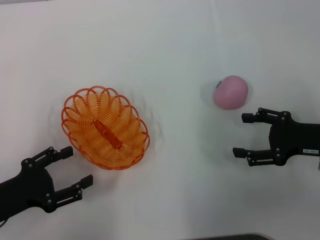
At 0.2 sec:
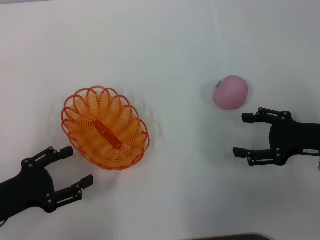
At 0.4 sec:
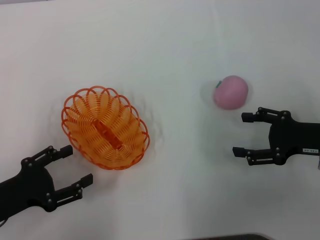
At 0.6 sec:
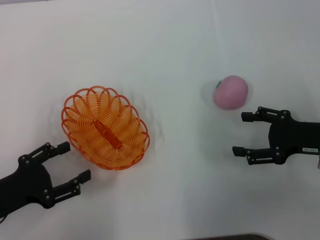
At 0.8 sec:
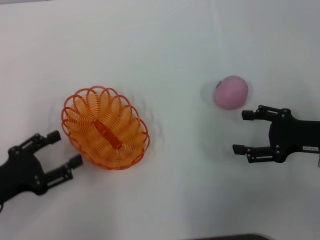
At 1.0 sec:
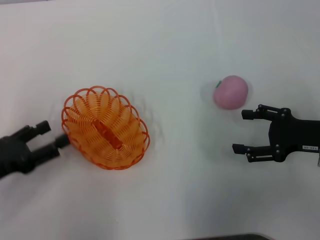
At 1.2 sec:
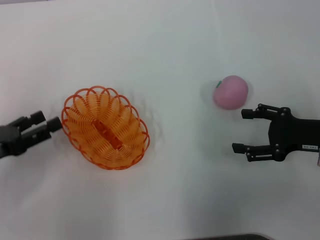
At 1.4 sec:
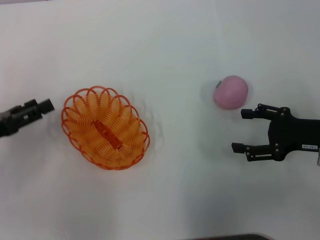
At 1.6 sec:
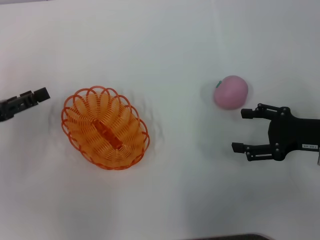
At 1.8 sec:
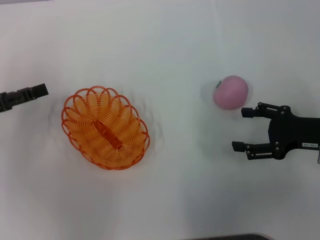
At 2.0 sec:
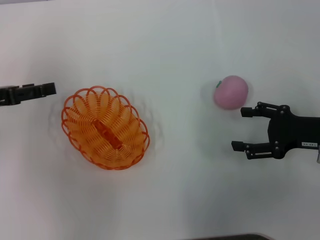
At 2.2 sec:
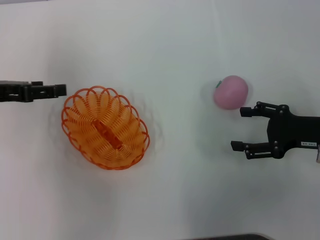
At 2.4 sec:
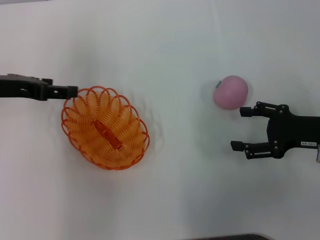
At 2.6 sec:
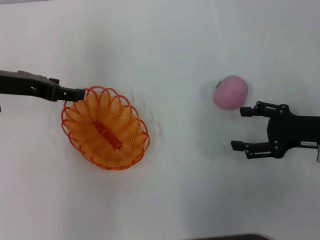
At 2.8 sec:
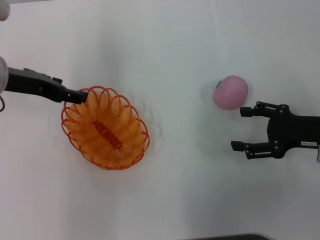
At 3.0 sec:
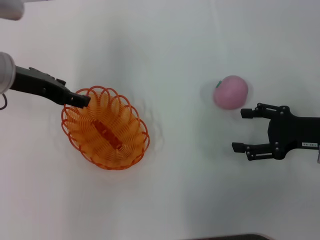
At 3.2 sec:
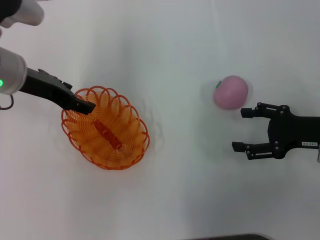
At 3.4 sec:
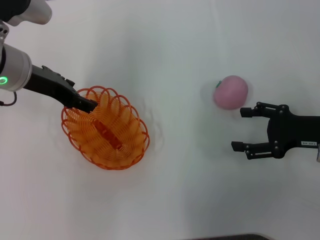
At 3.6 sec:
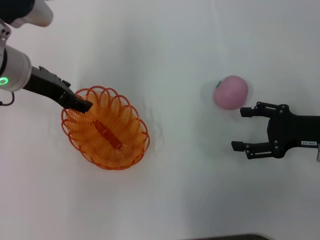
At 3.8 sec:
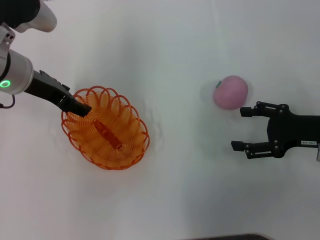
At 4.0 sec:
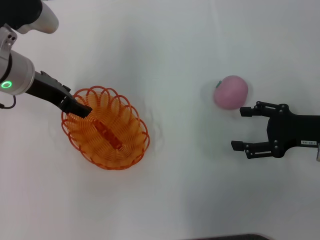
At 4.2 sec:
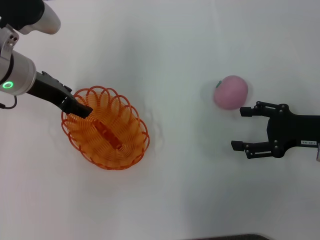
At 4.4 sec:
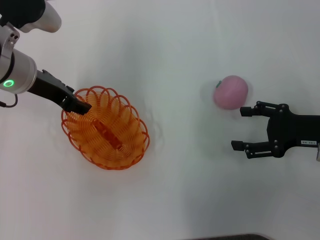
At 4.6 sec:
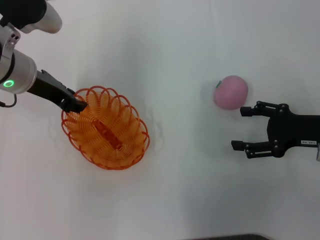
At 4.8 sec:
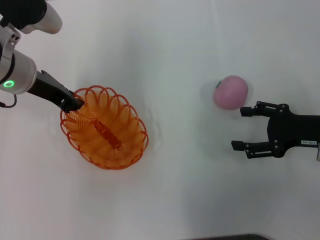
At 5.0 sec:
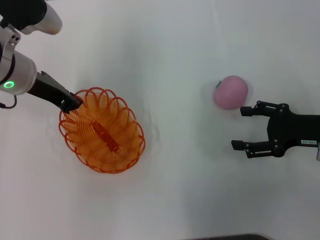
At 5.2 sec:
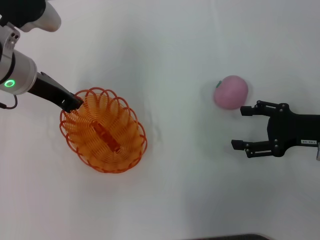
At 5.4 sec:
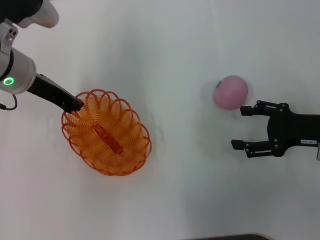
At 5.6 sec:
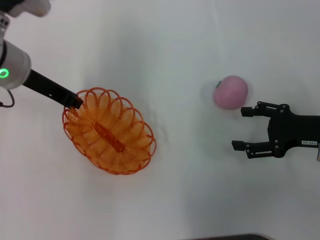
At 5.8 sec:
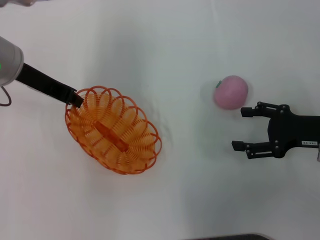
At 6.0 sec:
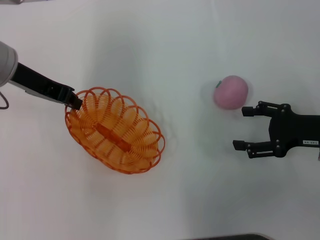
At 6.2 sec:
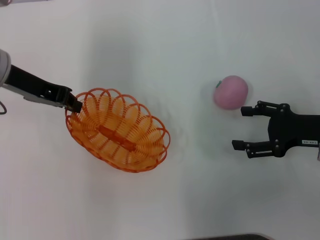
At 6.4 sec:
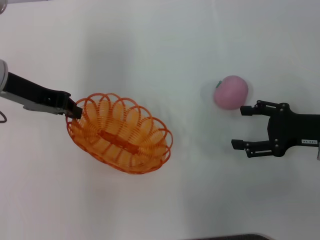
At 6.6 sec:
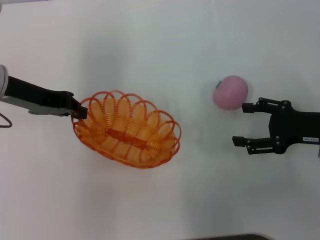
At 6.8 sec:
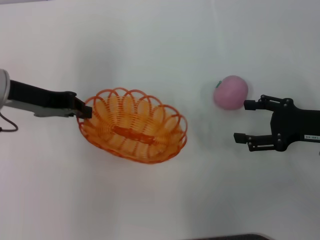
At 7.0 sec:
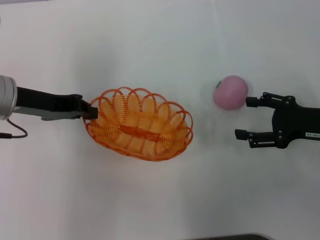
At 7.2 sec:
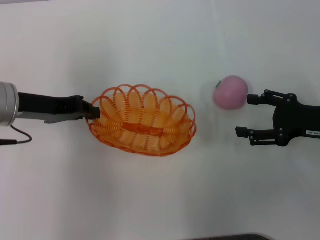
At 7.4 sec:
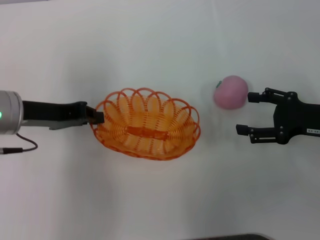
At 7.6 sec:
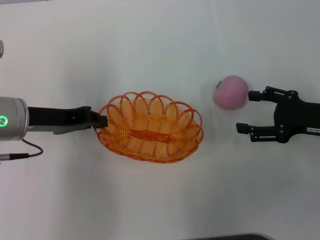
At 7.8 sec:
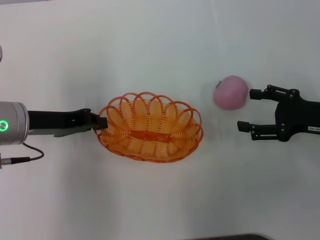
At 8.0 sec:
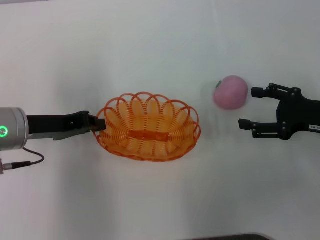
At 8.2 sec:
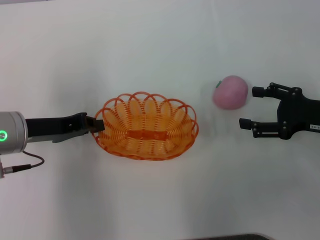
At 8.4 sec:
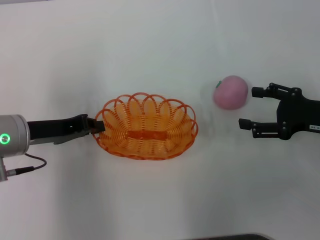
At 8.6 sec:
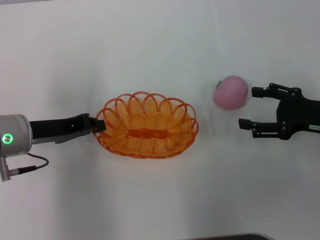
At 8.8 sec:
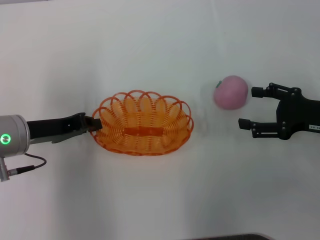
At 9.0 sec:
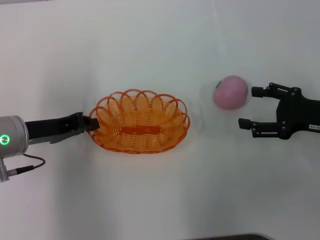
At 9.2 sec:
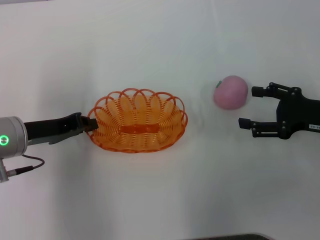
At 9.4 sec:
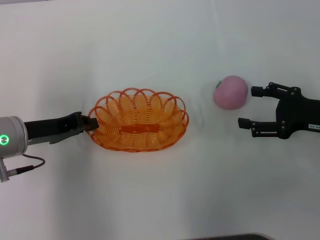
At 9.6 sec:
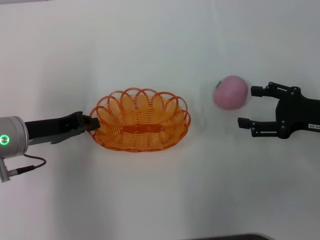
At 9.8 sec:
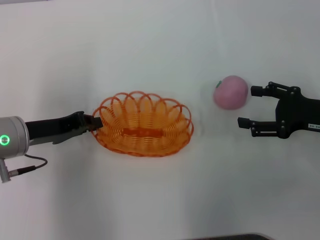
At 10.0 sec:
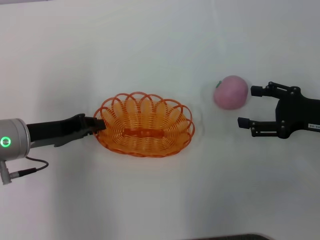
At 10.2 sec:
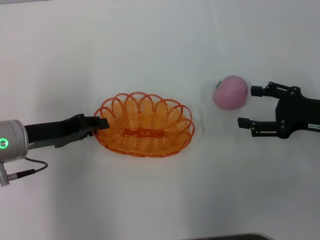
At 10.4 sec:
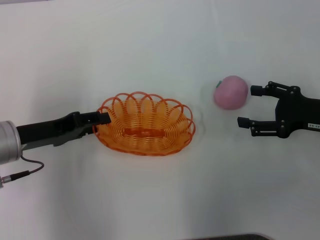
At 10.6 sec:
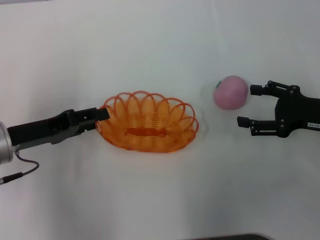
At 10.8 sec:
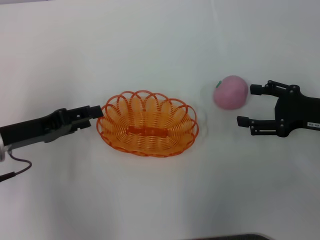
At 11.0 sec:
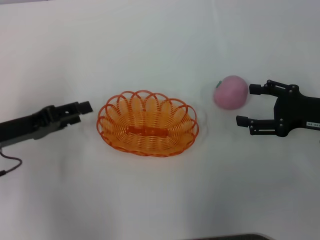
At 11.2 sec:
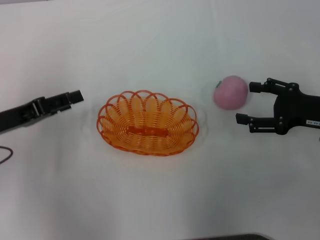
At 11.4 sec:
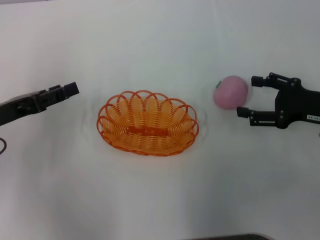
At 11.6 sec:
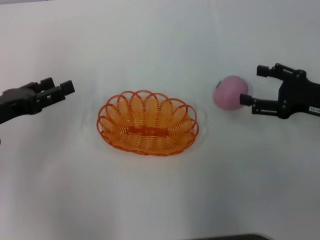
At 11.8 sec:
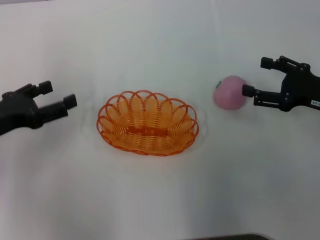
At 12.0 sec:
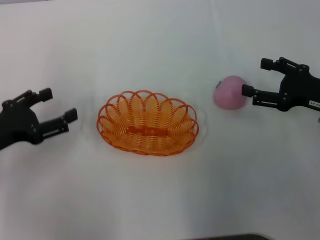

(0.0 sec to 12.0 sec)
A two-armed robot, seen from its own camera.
Step, 0.0 sec - 6.4 sec: Pick up the basket with the left gripper.
0.0 sec - 1.6 sec: The left gripper moves forward and upward, roughly 10 cm.
1.6 sec - 3.0 sec: The left gripper heads to the right, forward and upward, covering some 15 cm.
3.0 sec - 4.4 sec: The grippers make only small movements.
4.4 sec - 6.0 sec: The left gripper closes its fingers.
6.0 sec - 7.6 sec: The left gripper heads backward and downward, covering approximately 10 cm.
7.6 sec - 10.4 sec: The grippers move only a little.
10.4 sec - 12.0 sec: The left gripper is displaced to the left by approximately 5 cm, and opens its fingers.

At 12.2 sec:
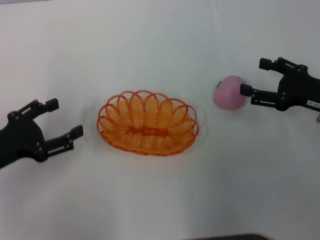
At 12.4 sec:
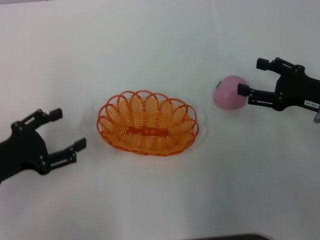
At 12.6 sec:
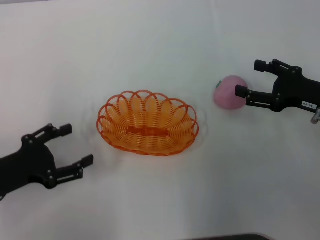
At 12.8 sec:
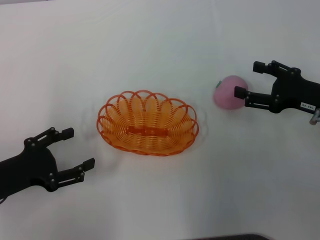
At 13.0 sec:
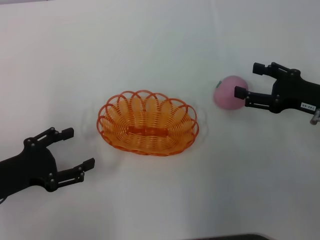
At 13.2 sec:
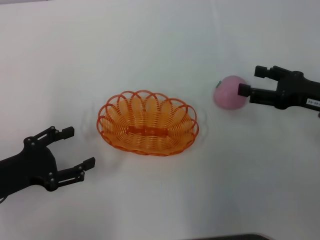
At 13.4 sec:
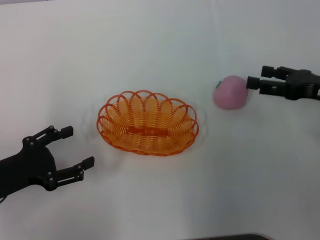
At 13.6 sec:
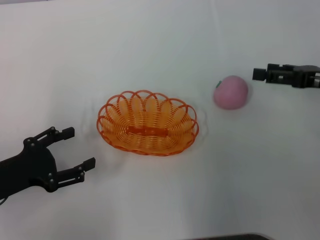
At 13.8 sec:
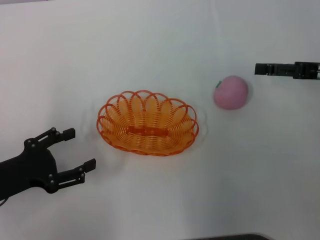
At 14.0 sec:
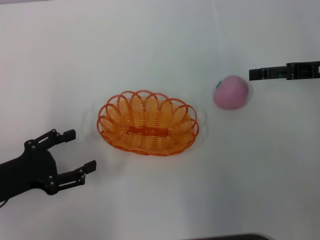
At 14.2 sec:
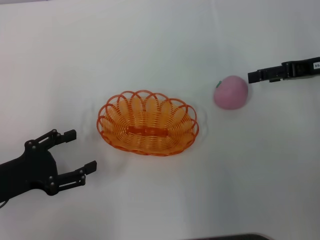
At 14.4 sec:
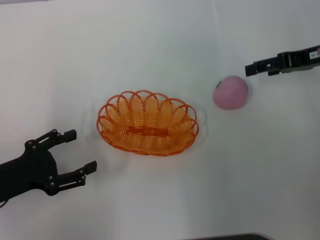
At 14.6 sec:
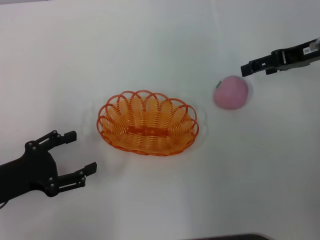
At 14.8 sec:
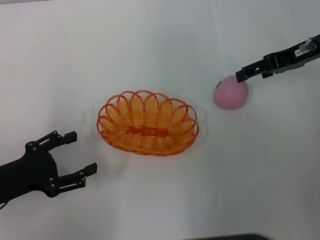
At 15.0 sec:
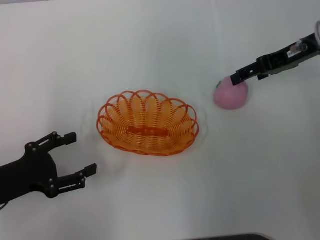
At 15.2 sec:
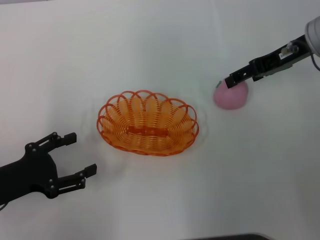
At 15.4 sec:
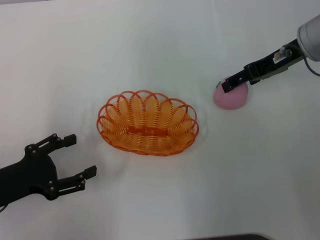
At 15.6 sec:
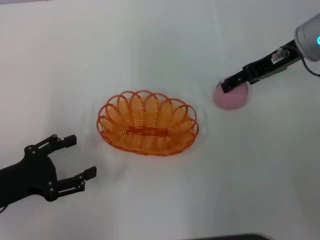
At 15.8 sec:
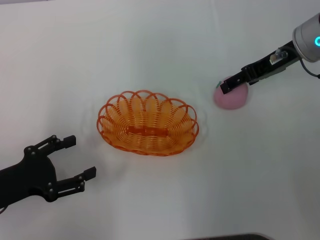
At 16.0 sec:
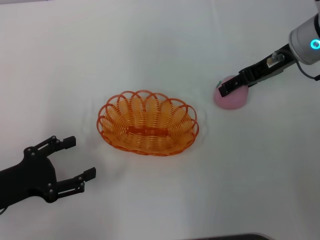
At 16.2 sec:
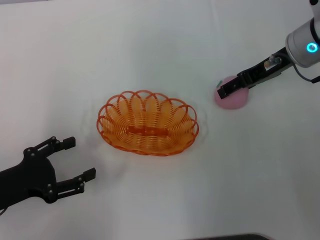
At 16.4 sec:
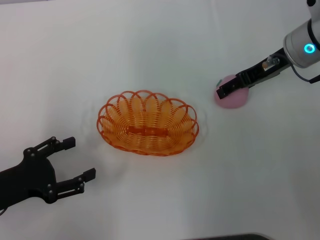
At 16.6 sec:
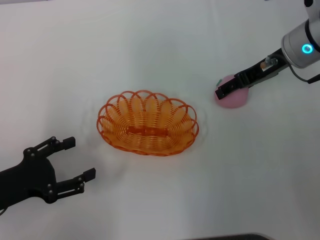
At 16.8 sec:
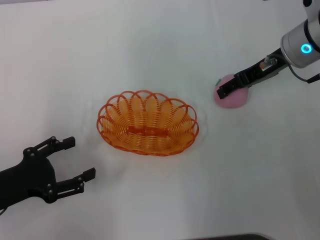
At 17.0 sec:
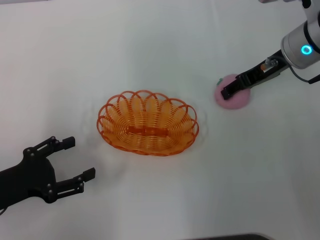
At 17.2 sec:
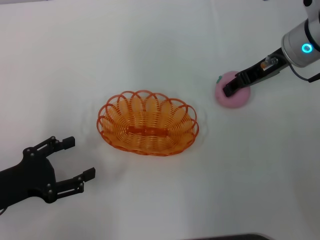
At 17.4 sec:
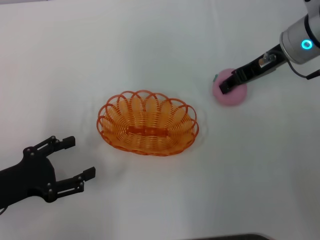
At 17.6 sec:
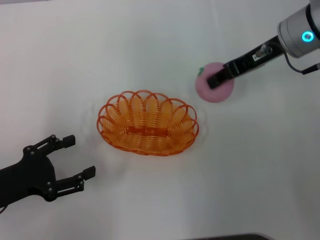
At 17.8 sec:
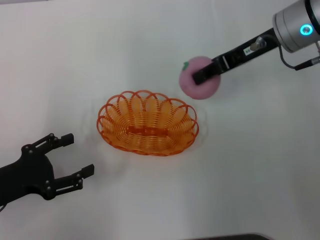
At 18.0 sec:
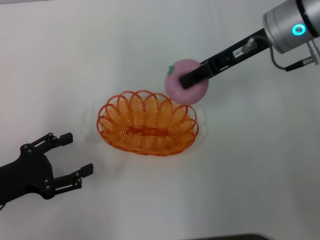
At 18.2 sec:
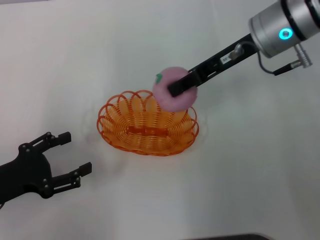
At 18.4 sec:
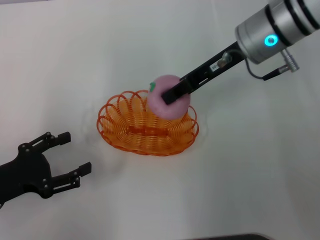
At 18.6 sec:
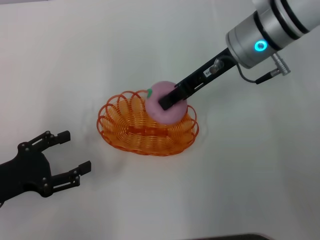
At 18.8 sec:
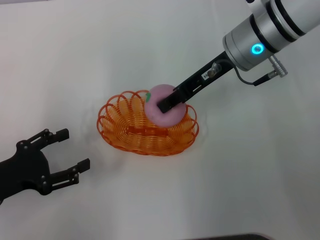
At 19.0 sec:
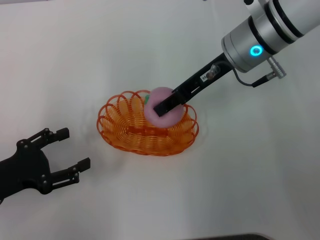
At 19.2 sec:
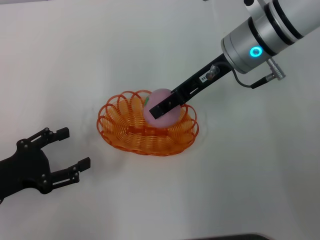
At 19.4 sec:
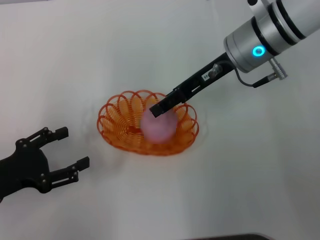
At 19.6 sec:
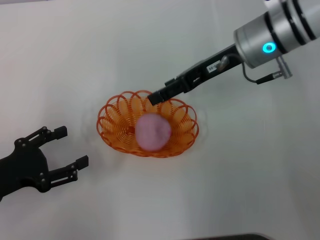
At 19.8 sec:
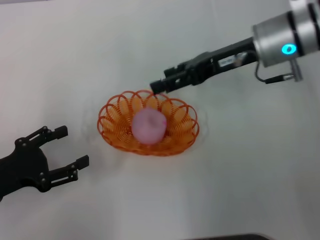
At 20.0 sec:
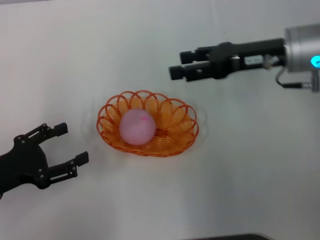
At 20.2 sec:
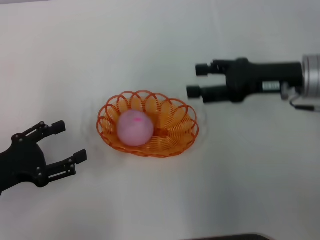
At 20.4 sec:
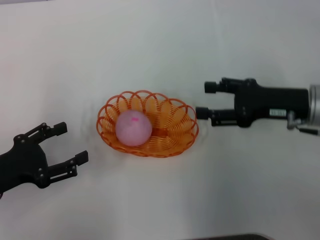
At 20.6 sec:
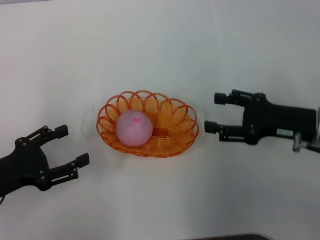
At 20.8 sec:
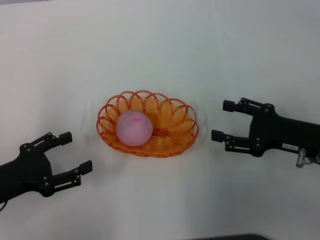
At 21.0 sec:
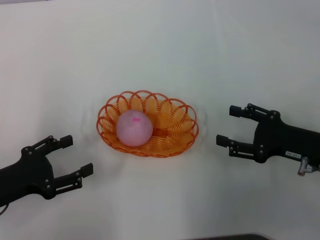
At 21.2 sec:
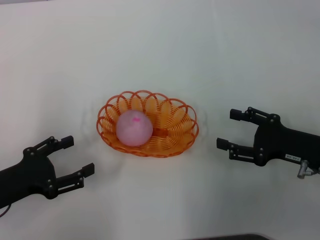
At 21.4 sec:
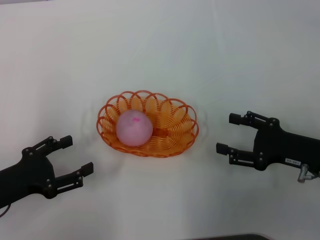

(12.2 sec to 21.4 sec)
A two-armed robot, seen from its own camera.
Step, 12.6 sec - 17.8 sec: Pick up the peach with the right gripper.
Step, 18.2 sec - 20.2 sec: Place the peach into the basket with the right gripper.
12.2 sec - 13.8 sec: The right gripper moves about 5 cm.
13.8 sec - 15.2 sec: The right gripper shifts some 10 cm to the left and forward.
15.2 sec - 16.8 sec: There are only small adjustments of the grippers.
16.8 sec - 18.4 sec: The right gripper moves to the left, roughly 5 cm, and closes its fingers.
18.4 sec - 19.8 sec: The right gripper opens up.
19.8 sec - 21.4 sec: The right gripper is displaced backward, downward and to the right by roughly 20 cm.
